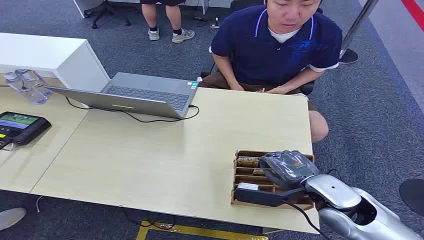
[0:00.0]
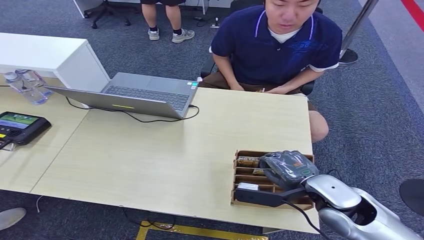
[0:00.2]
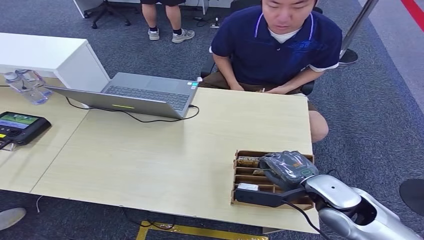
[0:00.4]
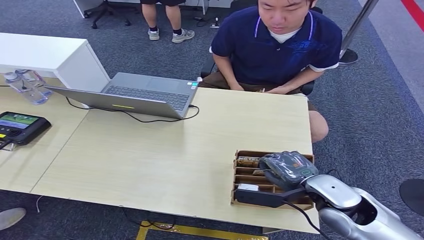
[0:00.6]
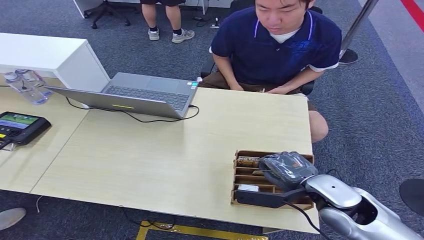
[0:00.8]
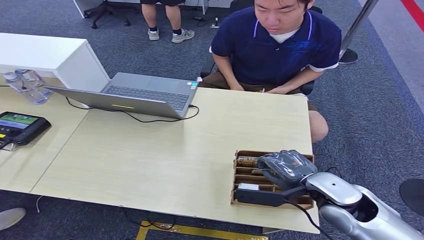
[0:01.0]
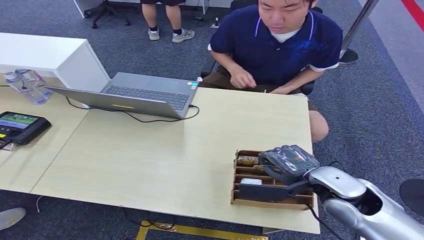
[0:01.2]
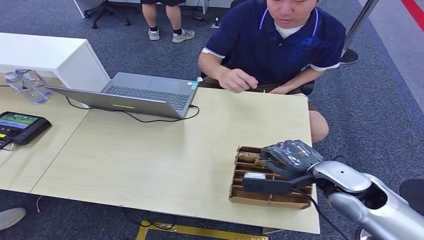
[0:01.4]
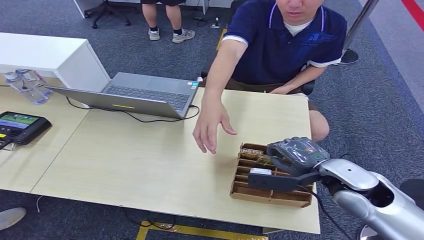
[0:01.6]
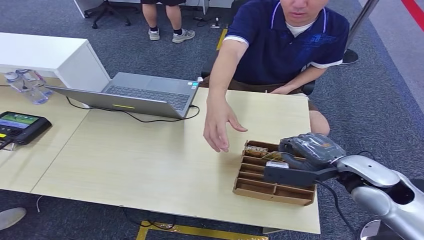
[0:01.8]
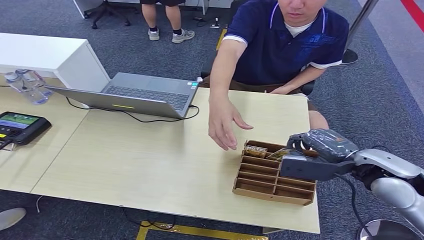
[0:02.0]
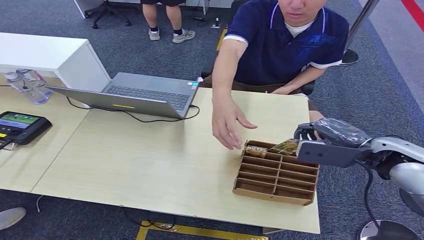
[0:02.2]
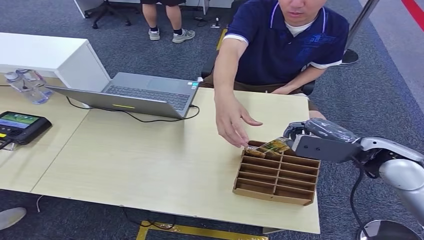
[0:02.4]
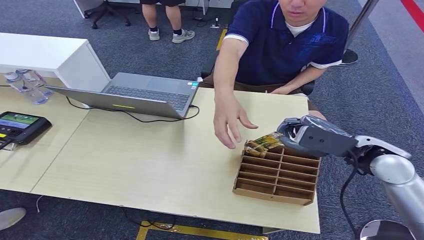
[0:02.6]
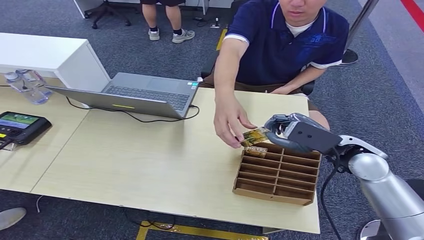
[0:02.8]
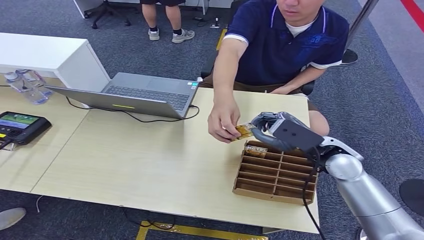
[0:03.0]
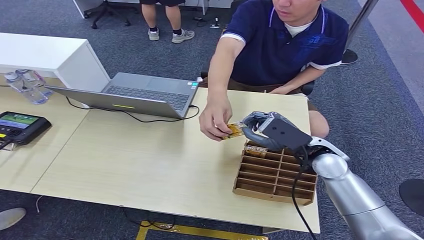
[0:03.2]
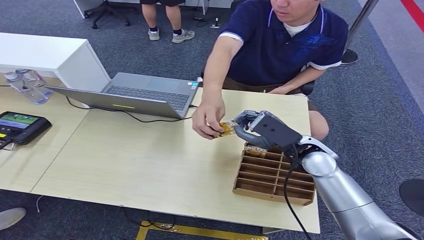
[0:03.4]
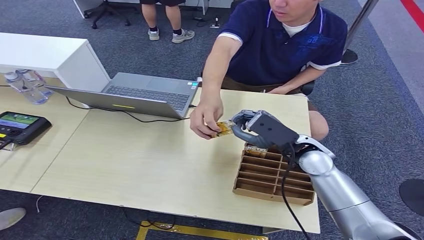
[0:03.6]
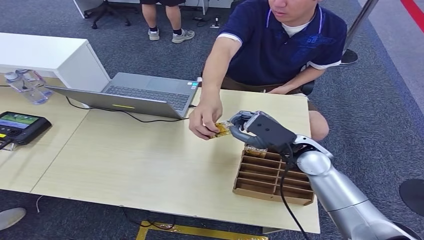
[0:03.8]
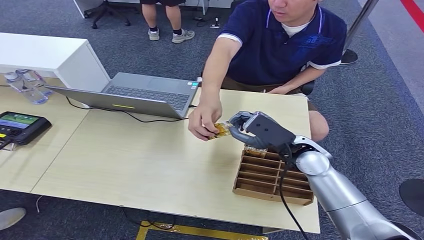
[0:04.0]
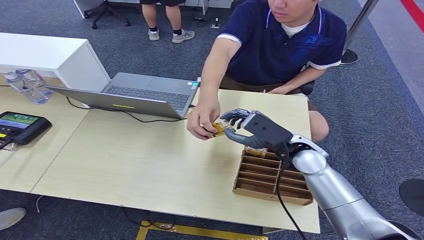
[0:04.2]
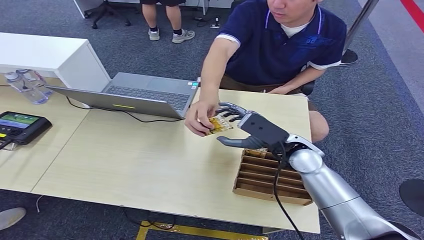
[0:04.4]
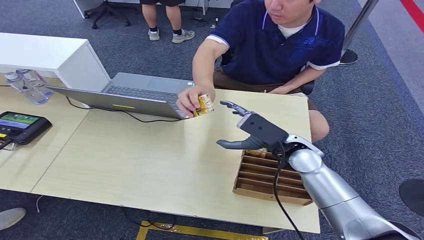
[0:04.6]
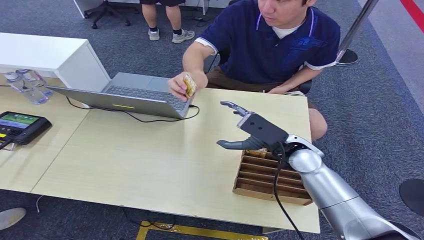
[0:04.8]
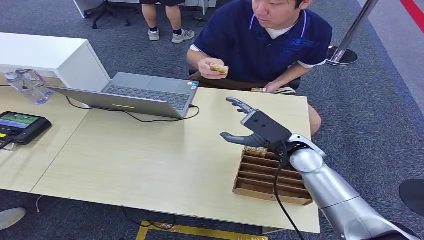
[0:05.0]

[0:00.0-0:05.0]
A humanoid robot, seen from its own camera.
Step, 0:00.0 to 0:02.6: Pick up the room card from the card holder.
Step, 0:02.8 to 0:05.0: Hand the room card to the target.
0:01.6 to 0:03.4: The right hand shifts some 15 cm to the left and forward.
0:03.4 to 0:05.0: There are only small adjustments of the hands.

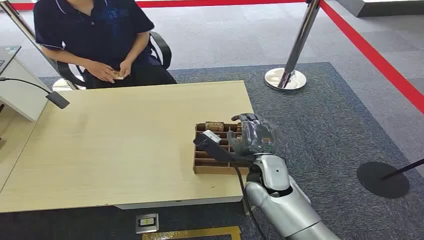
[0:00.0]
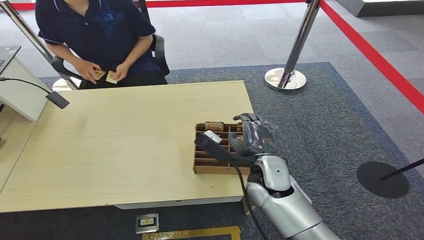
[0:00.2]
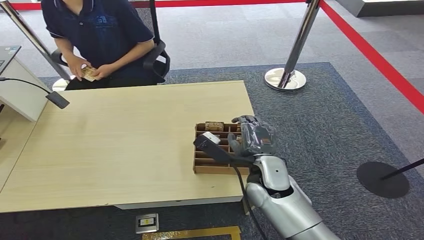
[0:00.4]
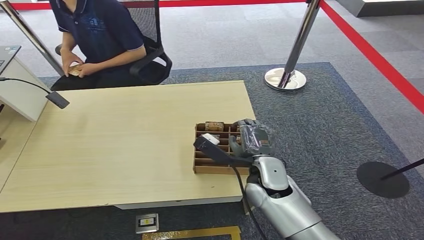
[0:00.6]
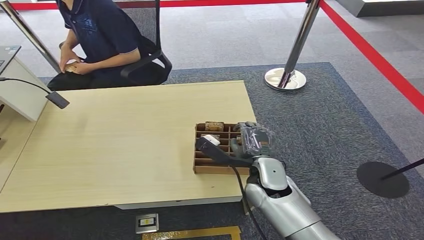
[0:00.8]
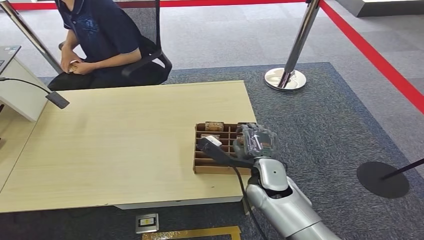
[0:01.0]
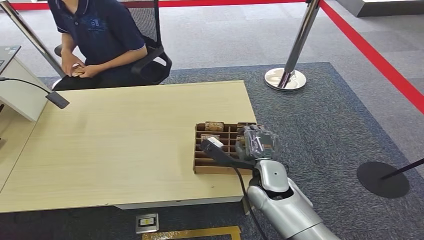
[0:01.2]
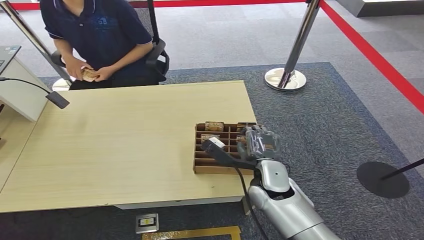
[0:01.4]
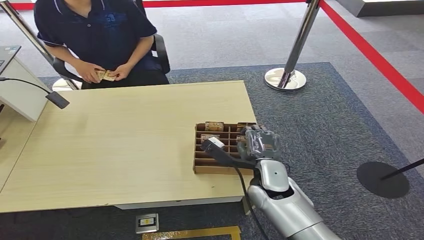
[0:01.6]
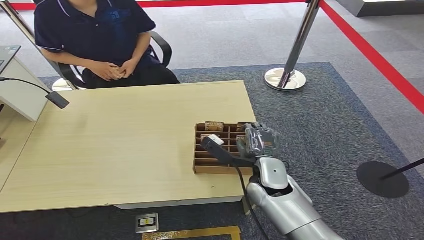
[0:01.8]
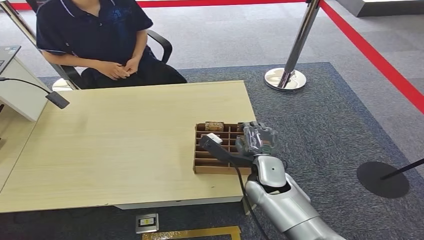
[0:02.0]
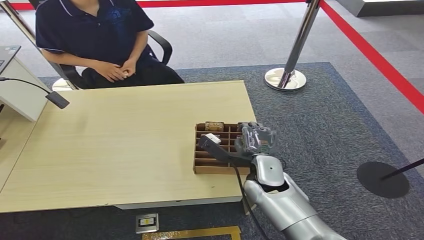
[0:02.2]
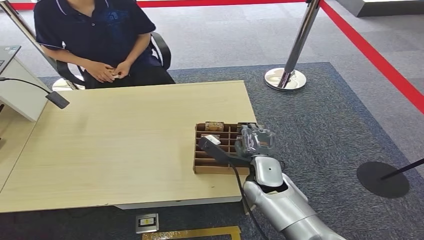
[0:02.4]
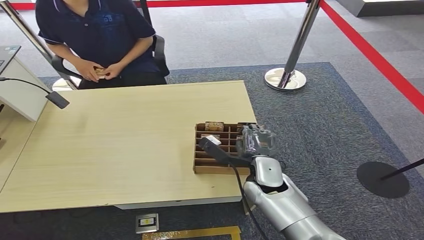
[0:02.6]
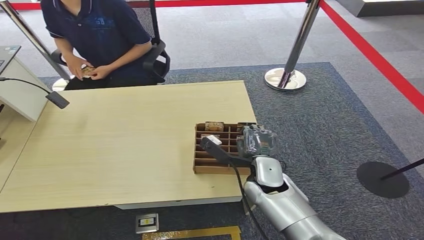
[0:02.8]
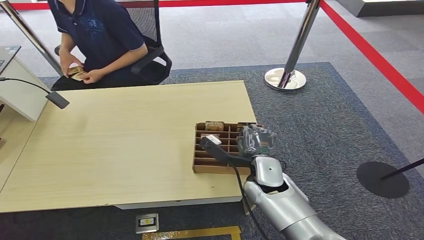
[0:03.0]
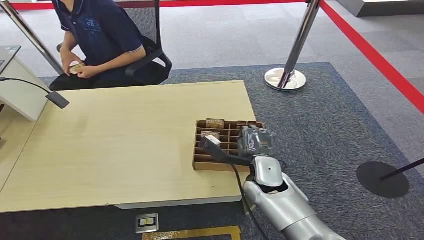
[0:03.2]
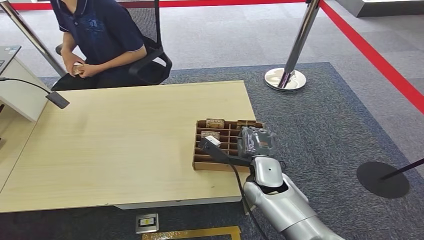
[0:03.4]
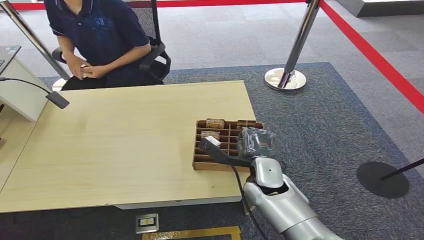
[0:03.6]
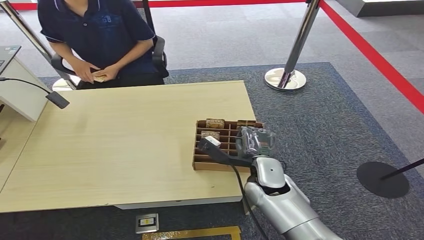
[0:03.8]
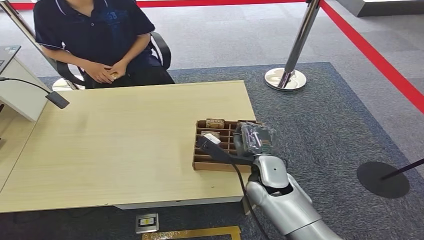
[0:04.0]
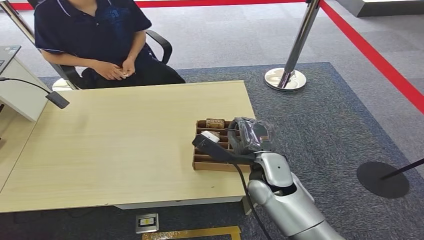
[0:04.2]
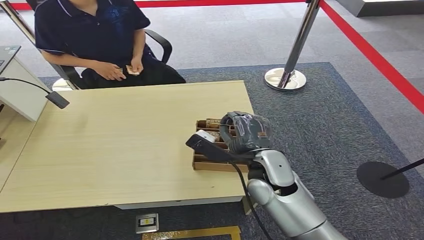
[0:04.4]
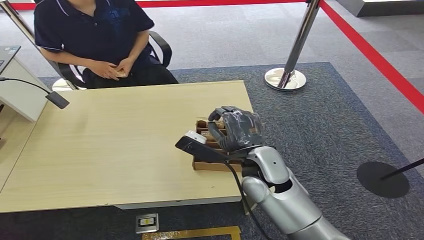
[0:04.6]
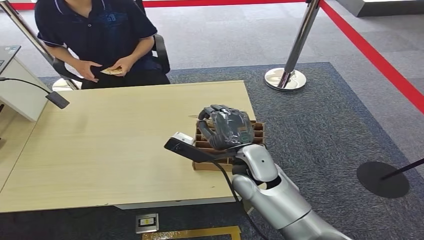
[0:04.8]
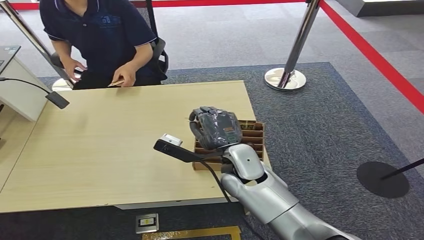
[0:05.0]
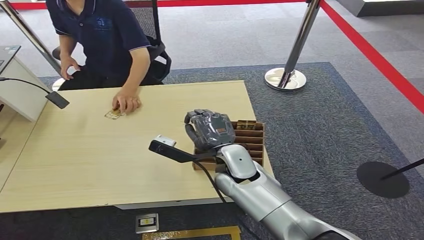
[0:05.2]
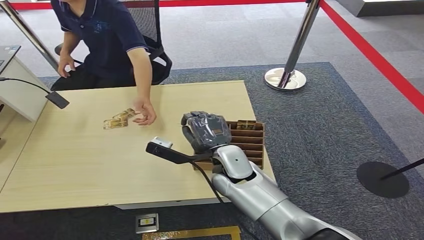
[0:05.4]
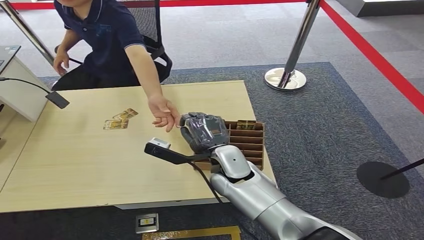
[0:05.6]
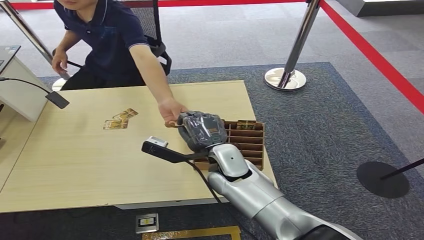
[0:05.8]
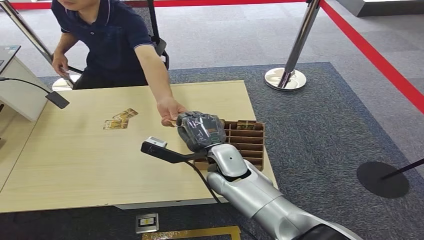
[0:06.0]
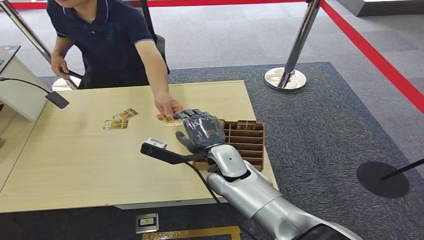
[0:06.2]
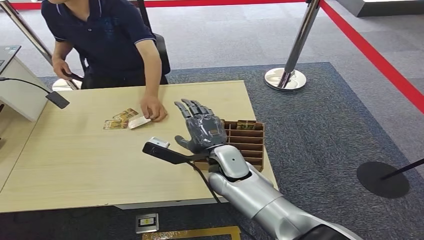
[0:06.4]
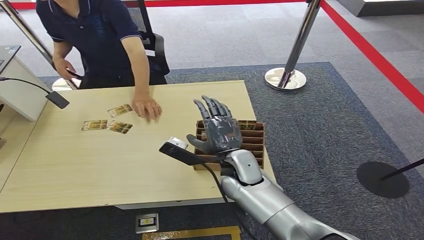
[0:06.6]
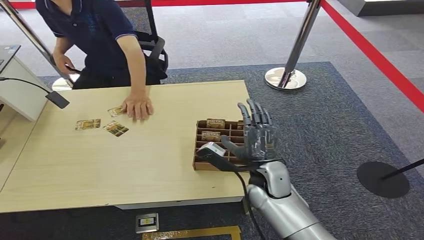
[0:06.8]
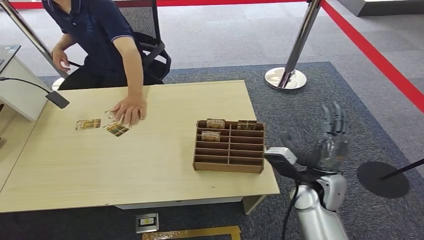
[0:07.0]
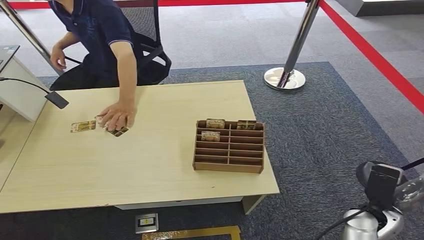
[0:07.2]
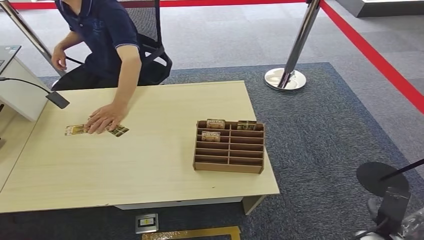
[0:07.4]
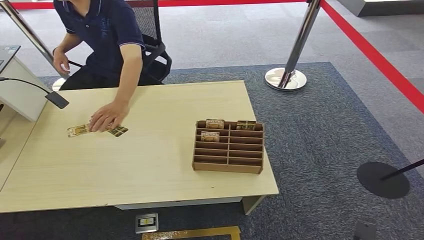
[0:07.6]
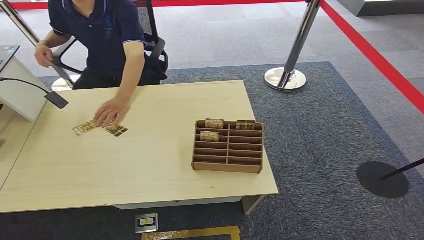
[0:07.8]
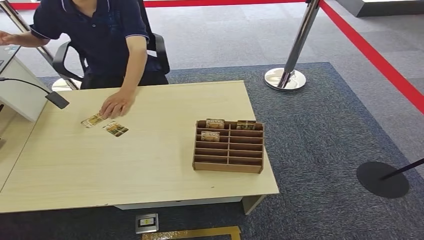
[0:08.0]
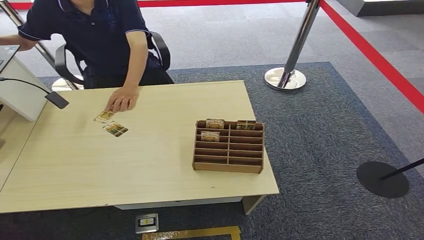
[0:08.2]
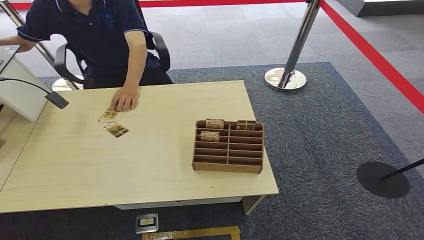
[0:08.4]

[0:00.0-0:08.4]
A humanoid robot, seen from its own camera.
Step, 0:00.0 to 0:04.6: Pick up the room card from the card holder.
Step, 0:04.8 to 0:08.4: Hand the room card to the target.
0:01.4 to 0:02.8: There are only small adjustments of the hands.
0:02.8 to 0:04.2: The right hand heads upward, covering roughly 10 cm.
0:04.2 to 0:05.6: The right hand is displaced to the left by approximately 10 cm.
0:05.6 to 0:07.0: The right hand goes about 35 cm to the right and backward.
0:07.0 to 0:08.4: The right hand travels downward, to the left and backward by about 25 cm.
